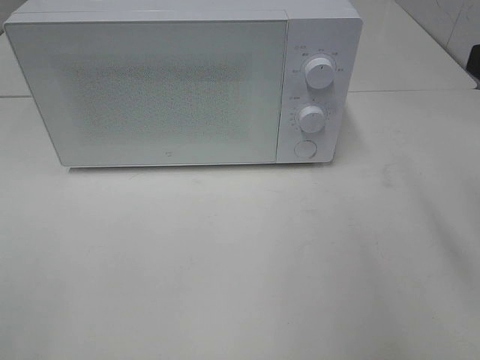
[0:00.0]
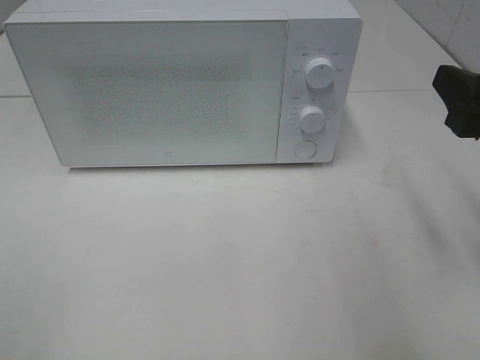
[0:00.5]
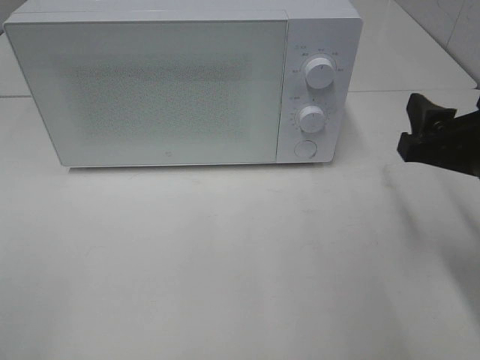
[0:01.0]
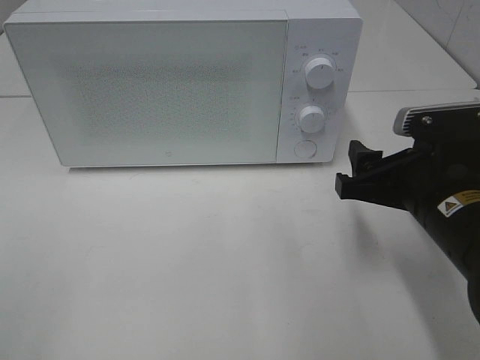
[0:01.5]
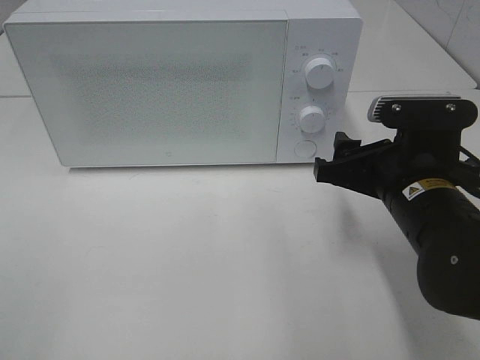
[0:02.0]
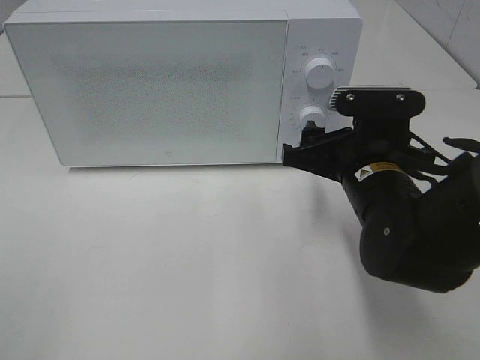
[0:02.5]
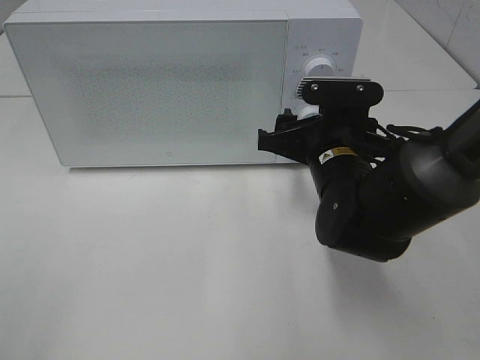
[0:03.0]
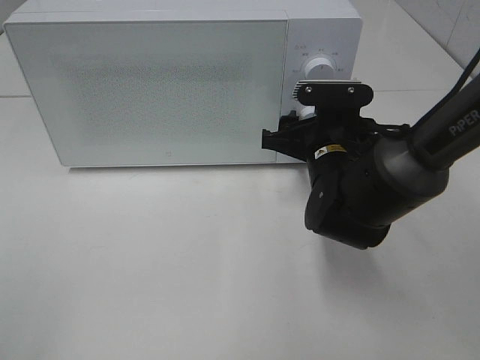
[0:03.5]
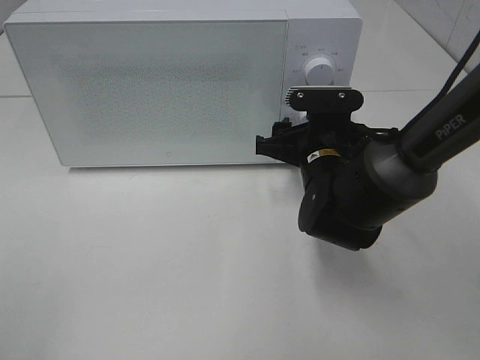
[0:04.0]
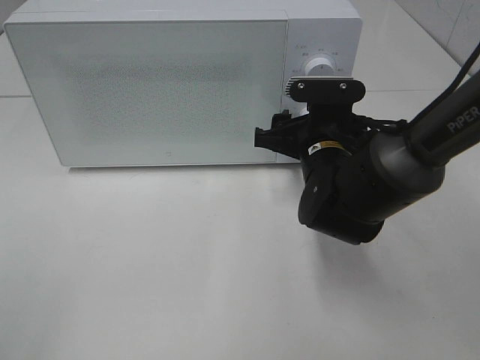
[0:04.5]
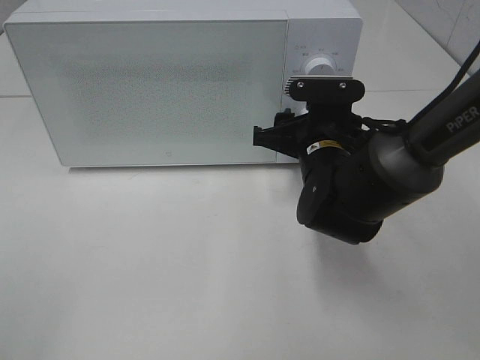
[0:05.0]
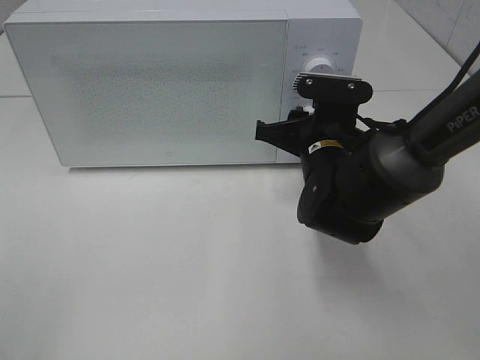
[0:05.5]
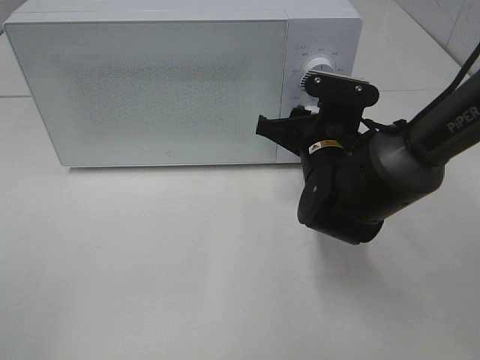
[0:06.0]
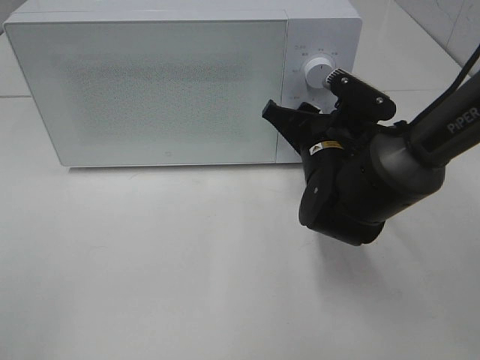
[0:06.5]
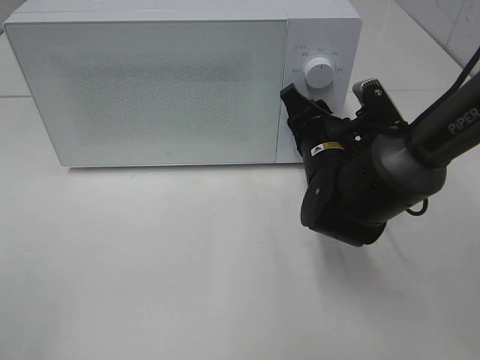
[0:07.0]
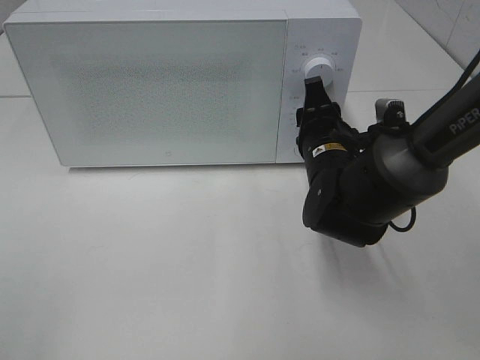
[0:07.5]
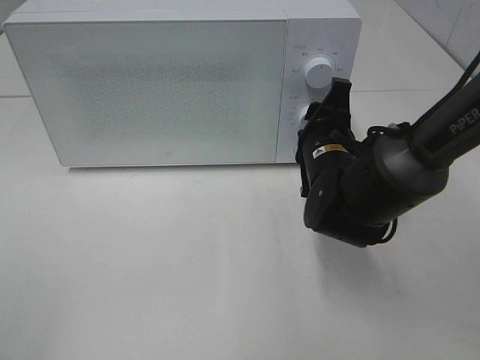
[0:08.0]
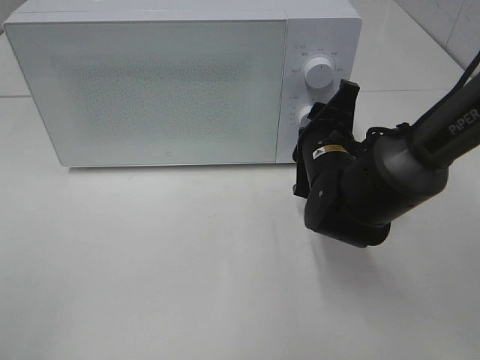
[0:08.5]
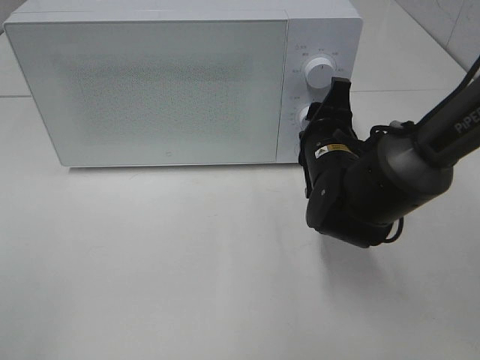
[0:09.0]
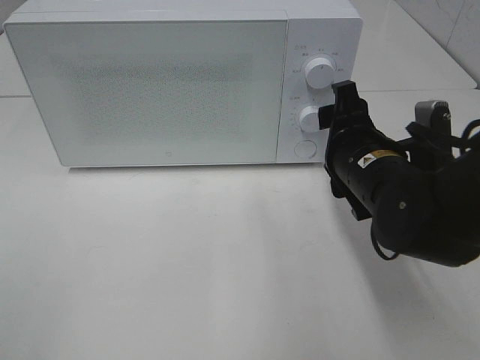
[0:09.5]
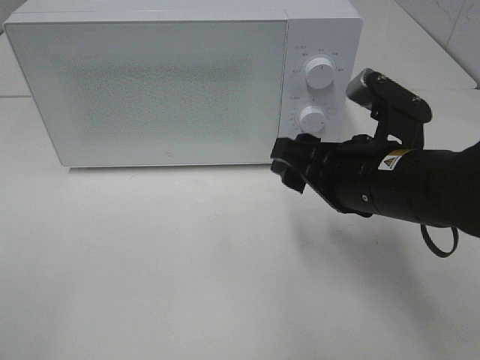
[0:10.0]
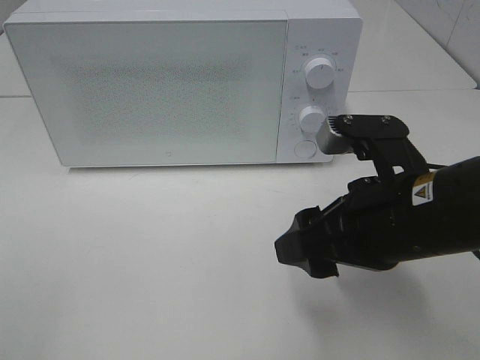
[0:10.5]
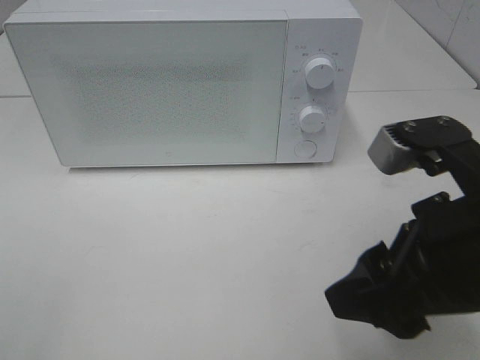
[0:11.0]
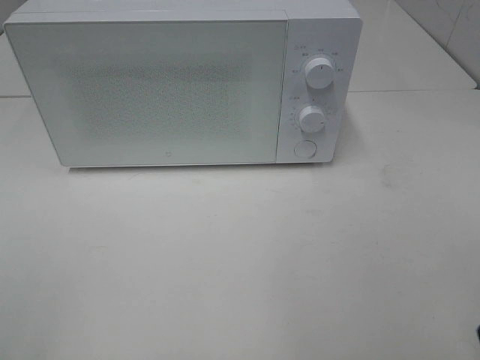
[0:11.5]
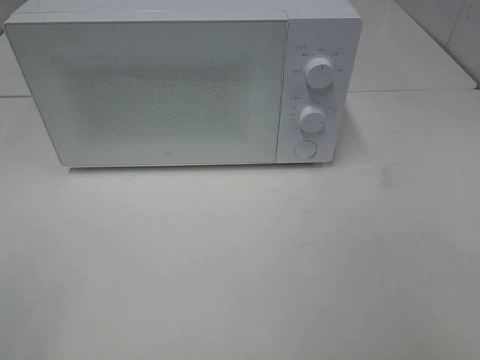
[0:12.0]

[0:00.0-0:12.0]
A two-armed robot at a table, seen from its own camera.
Task of the whole recording: Heat the burger.
Step, 0:00.0 to 0:09.0: Right hand: twist timer button.
0:00.0 to 0:02.0: The right gripper travels downward, to the left and forward by some 20 cm.
0:02.0 to 0:04.0: The right gripper travels forward and to the left by some 10 cm.
0:04.0 to 0:06.0: The right gripper closes.
0:08.0 to 0:10.0: The right gripper travels backward and upward by about 10 cm.
0:10.0 to 0:12.0: The right gripper shifts some 30 cm backward, to the right and upward.

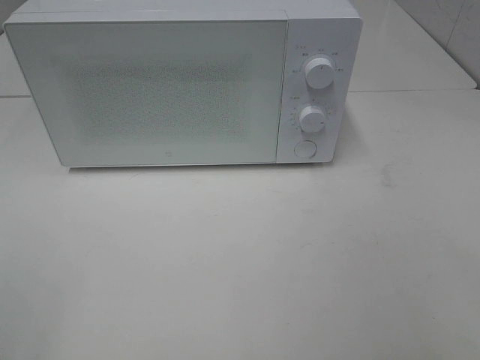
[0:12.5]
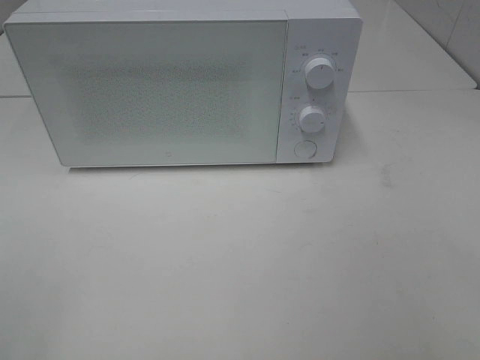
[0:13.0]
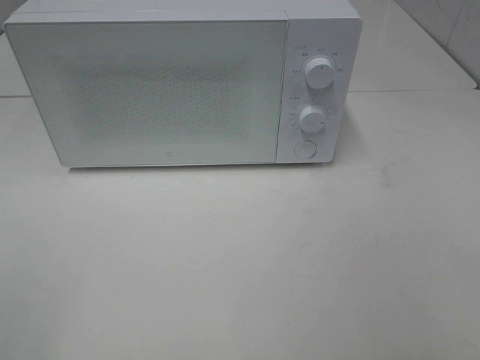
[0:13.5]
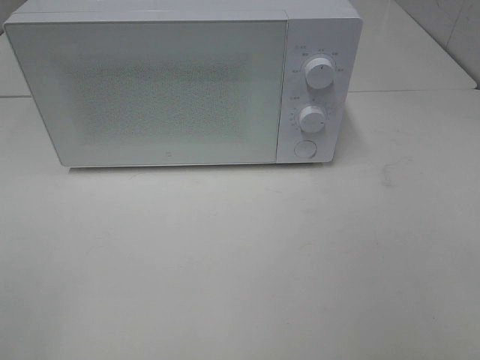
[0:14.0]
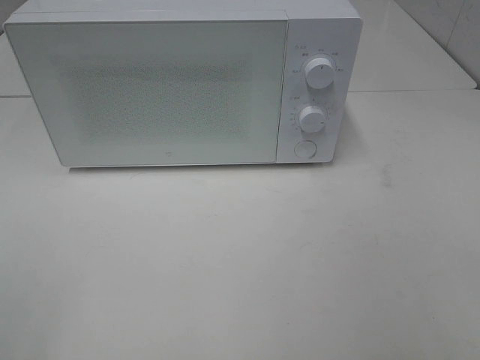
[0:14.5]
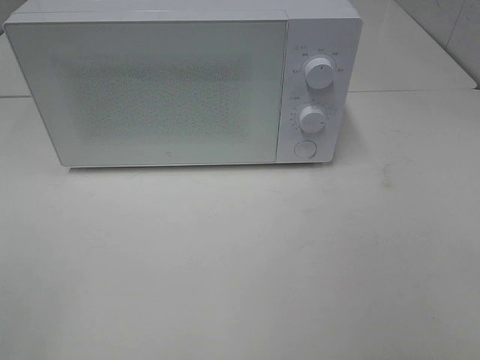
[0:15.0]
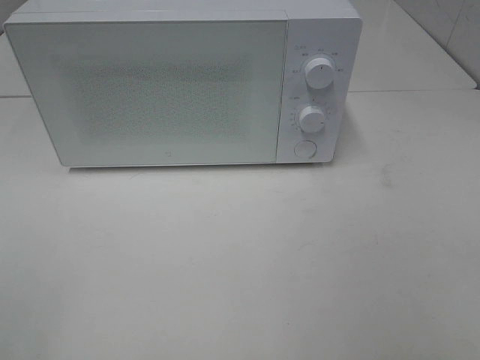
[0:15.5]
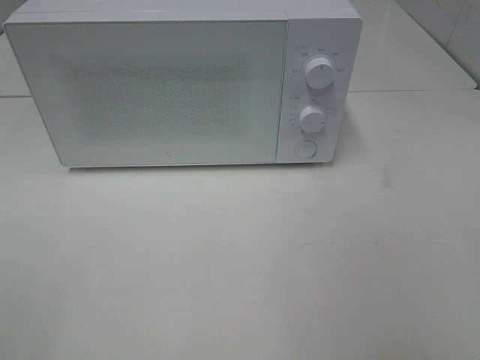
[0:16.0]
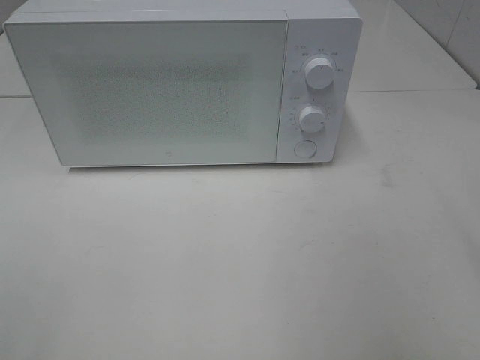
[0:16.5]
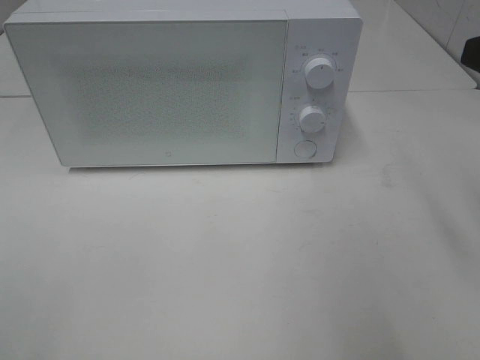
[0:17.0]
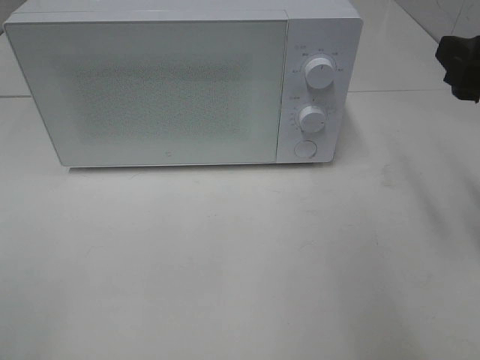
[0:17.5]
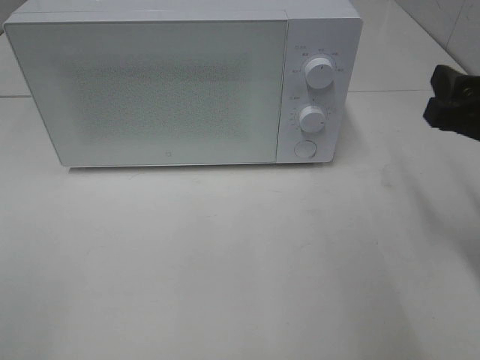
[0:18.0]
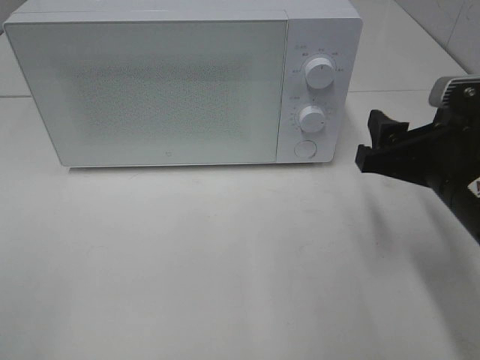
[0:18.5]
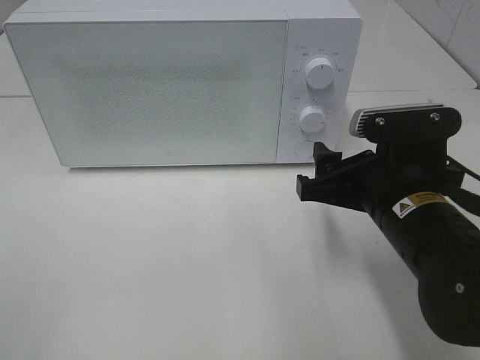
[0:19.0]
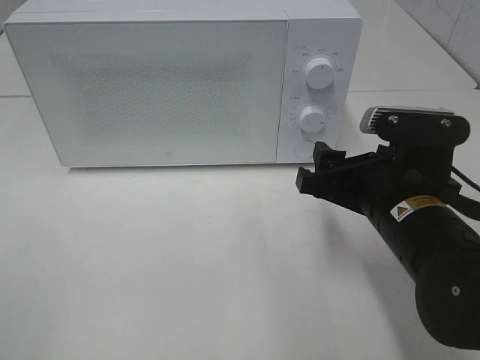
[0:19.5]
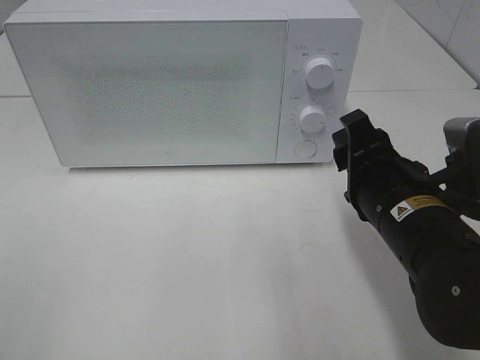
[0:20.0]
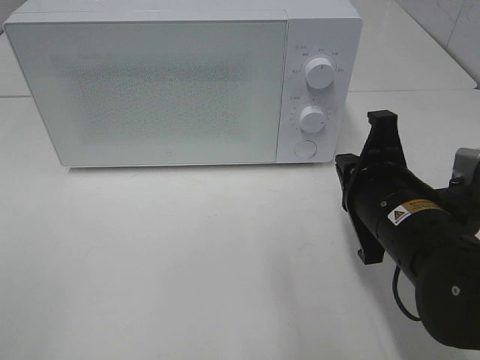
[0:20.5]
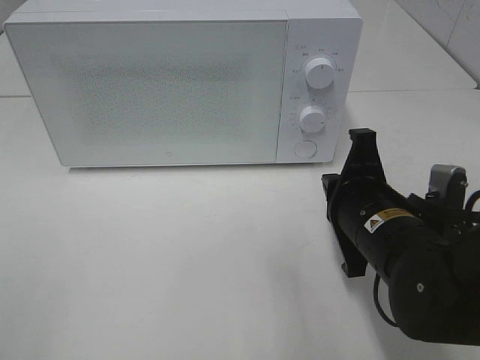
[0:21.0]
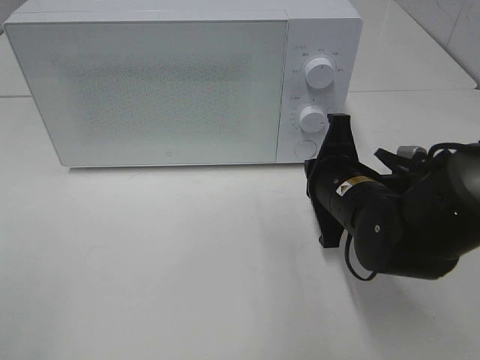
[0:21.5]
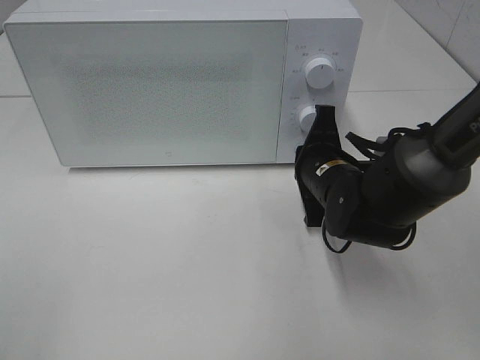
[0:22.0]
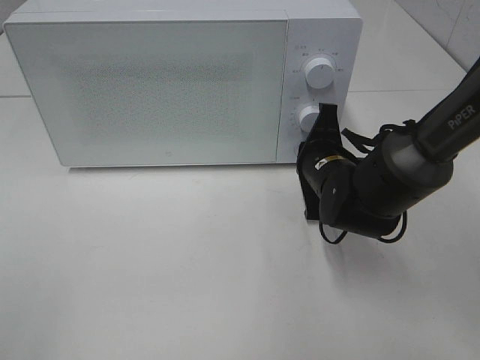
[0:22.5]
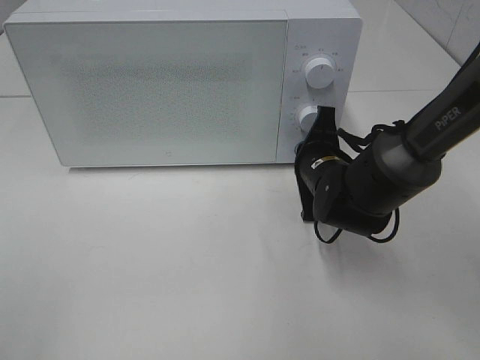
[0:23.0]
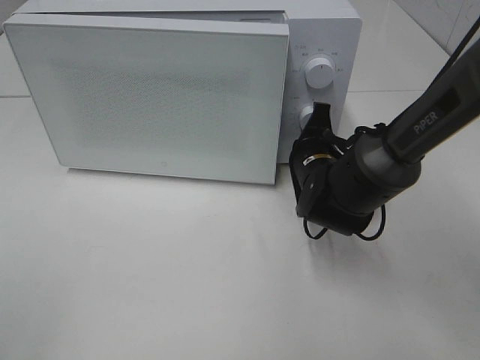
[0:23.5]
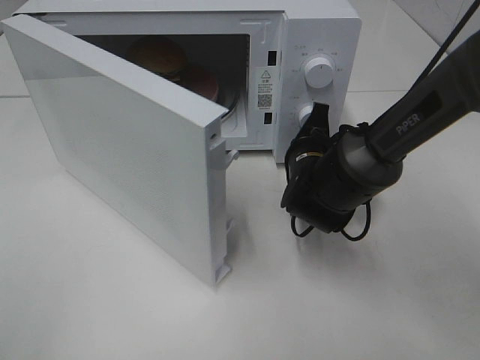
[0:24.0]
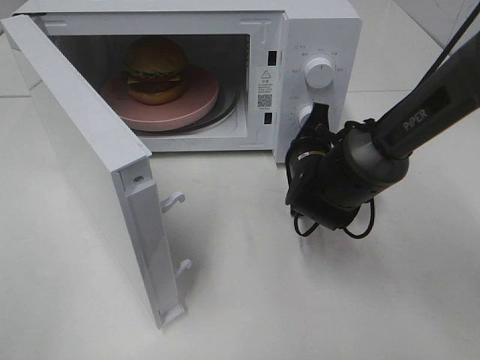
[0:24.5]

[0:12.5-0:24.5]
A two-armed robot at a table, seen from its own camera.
Task of the whole recording: Heat the burger.
0:16.5 to 0:18.5: The right gripper travels downward, forward and to the left by some 20 cm.
0:18.5 to 0:20.5: The right gripper moves to the left, roughly 5 cm, and closes its fingers.
0:20.5 to 0:22.5: The right gripper goes some 15 cm forward and downward.

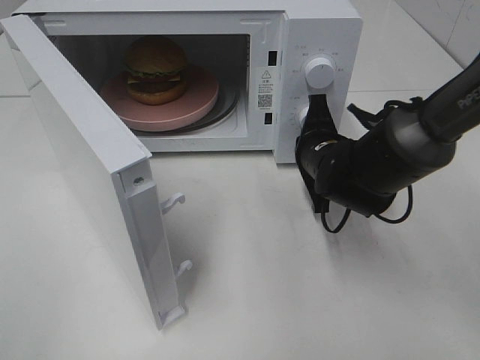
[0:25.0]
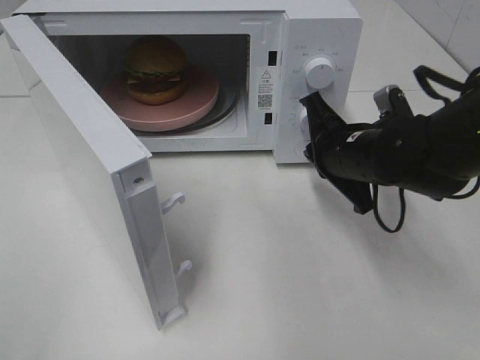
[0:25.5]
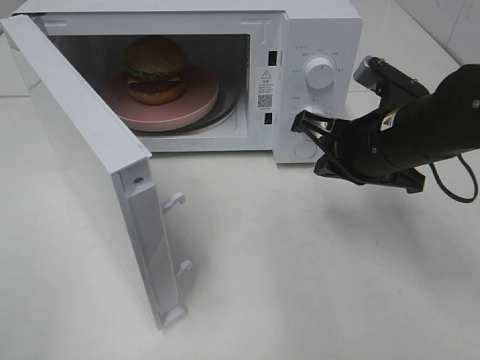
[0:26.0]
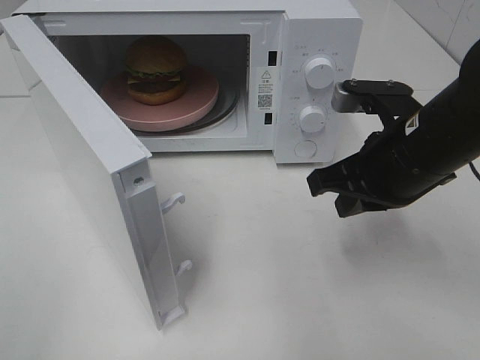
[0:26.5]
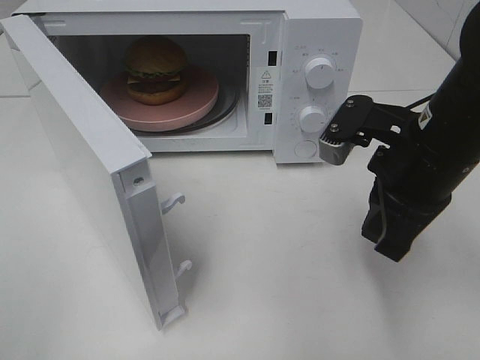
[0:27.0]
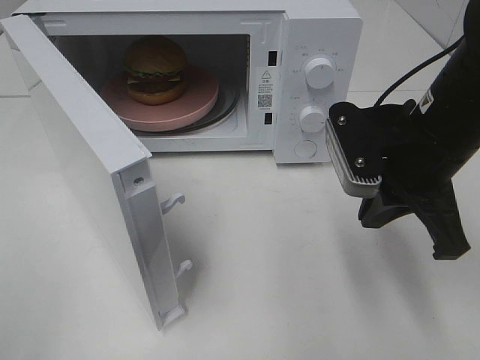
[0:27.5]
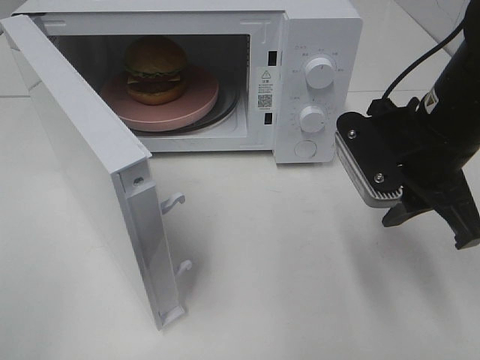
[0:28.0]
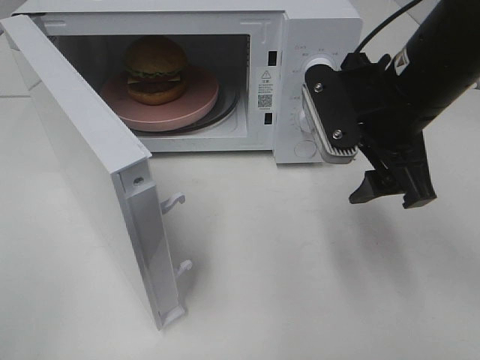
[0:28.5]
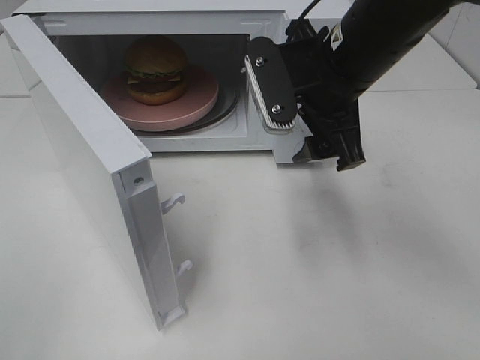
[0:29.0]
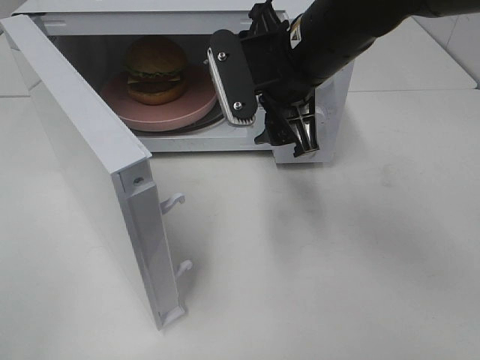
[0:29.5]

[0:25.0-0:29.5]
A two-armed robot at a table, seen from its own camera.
Task of the whole recording: Heat the burger.
0:25.0 to 0:27.0: The right gripper travels upward and backward by roughly 15 cm.
0:27.0 to 0:29.5: The right gripper travels to the left and forward by some 15 cm, and opens up.
